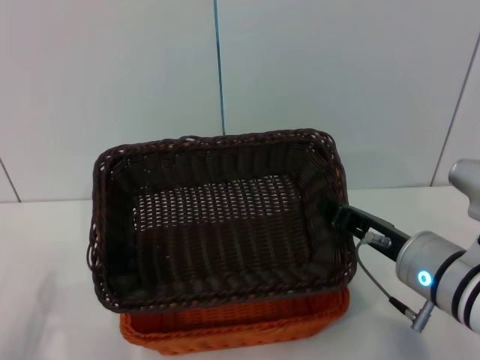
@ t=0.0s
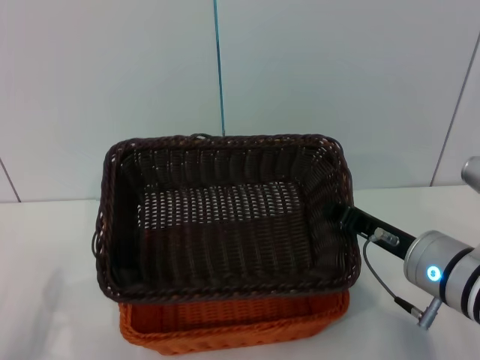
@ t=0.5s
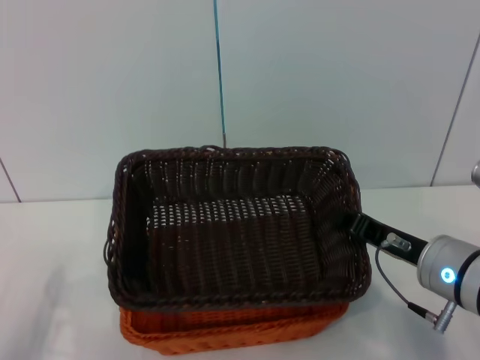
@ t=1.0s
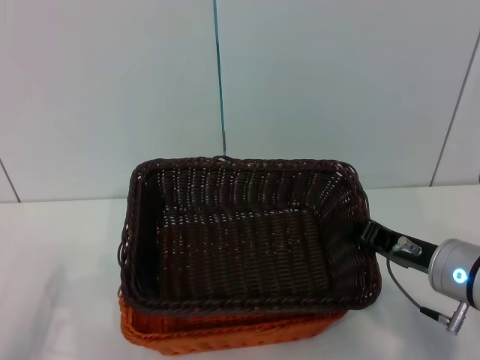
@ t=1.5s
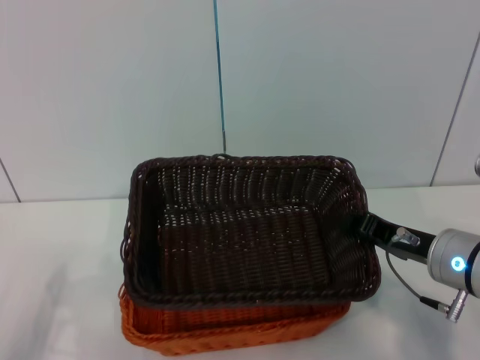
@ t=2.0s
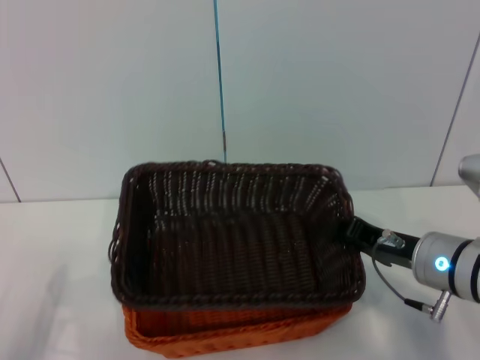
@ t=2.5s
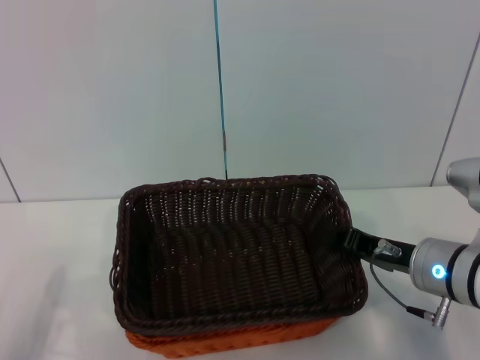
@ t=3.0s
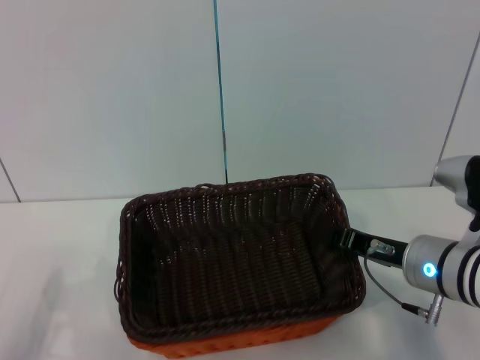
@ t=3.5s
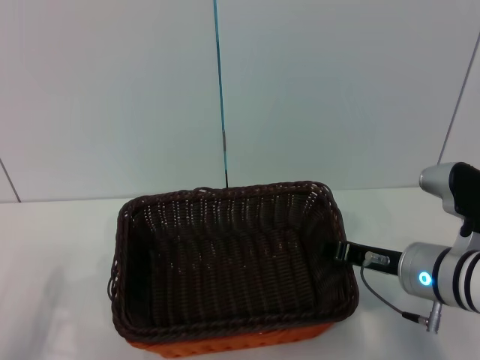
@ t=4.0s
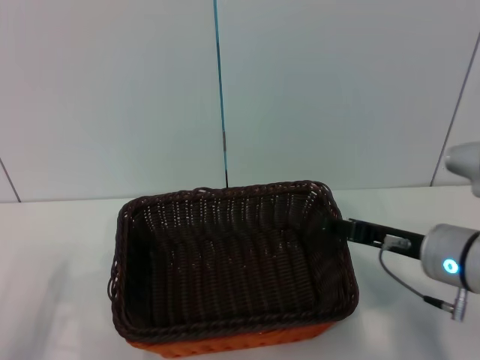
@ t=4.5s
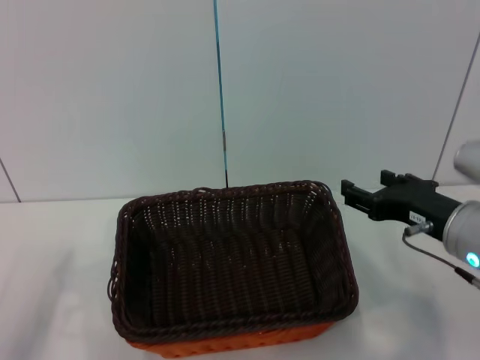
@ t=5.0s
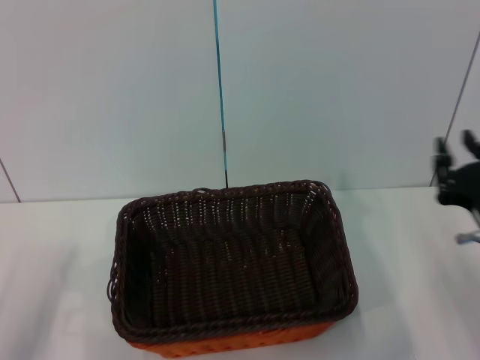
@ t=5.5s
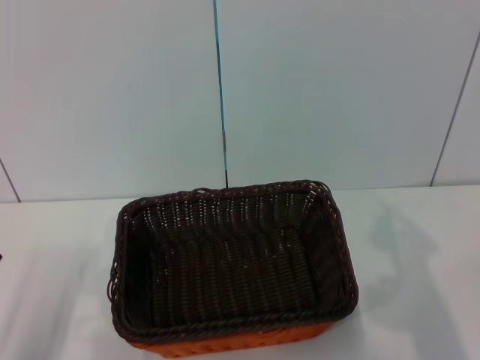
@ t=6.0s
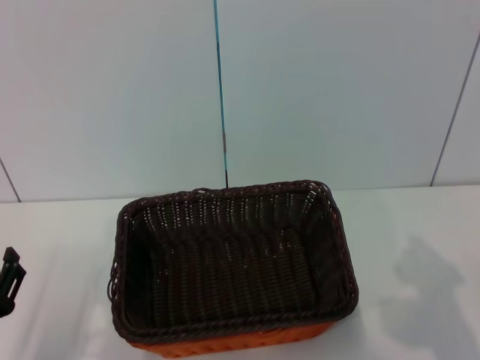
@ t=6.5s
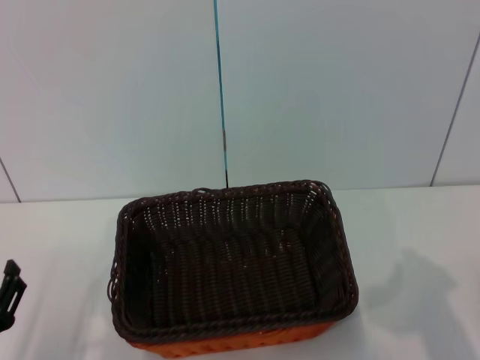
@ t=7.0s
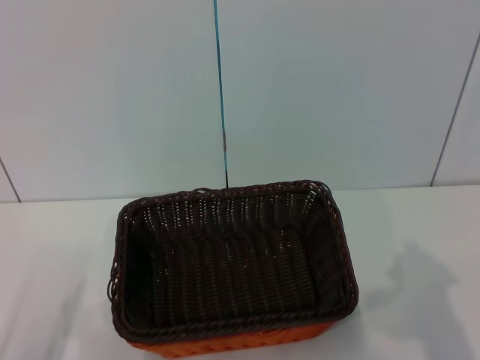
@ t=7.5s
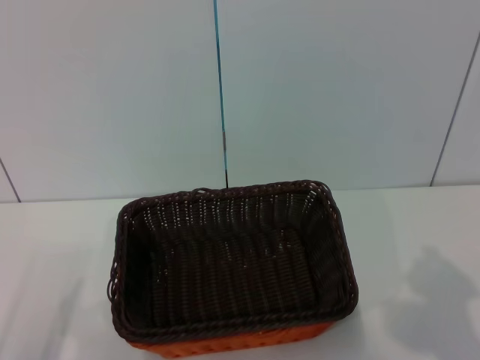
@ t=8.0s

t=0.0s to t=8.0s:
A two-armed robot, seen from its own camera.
Step, t=0.0s to t=3.5s: Place the dark basket on the light basket with the right gripper.
t=0.0s to t=4.0s: The grippers make only small movements.
t=4.0s to t=6.0s: The right gripper is displaced backward and to the right by roughly 15 cm, and opens, then closes once more.
t=6.0s to t=8.0s: The right gripper changes place by some 5 cm.
